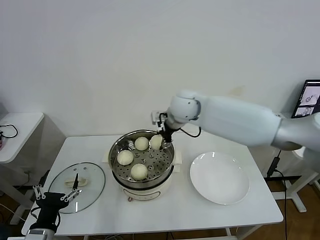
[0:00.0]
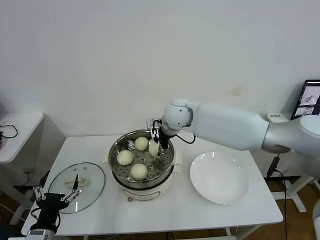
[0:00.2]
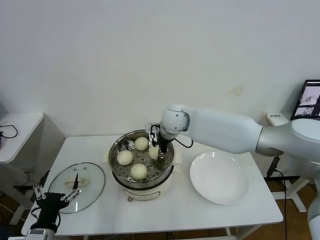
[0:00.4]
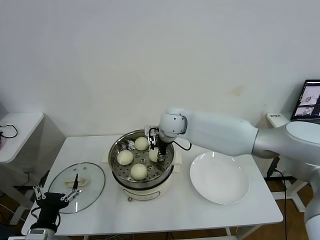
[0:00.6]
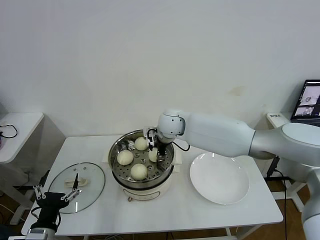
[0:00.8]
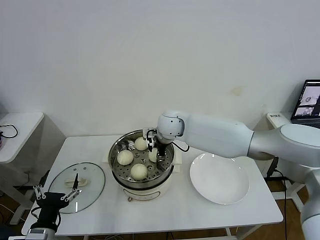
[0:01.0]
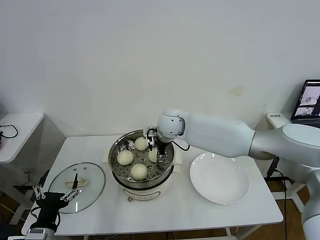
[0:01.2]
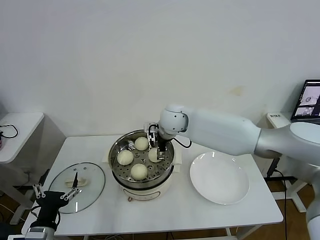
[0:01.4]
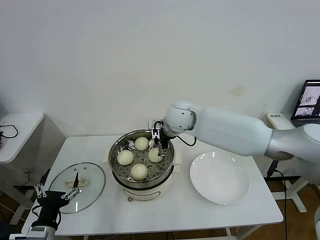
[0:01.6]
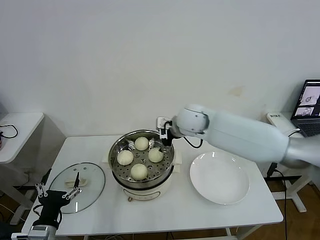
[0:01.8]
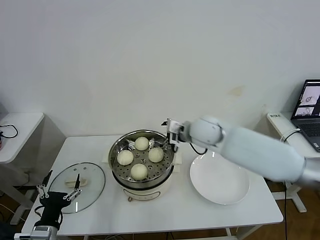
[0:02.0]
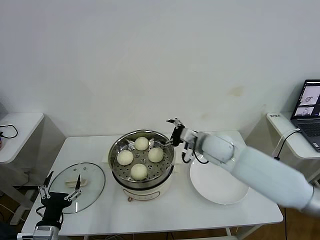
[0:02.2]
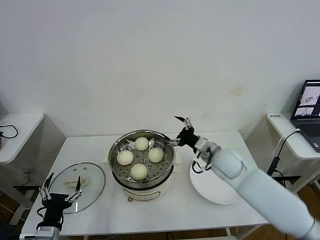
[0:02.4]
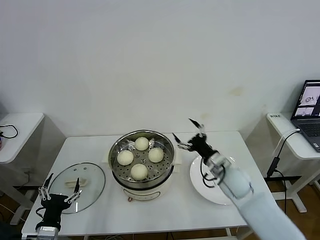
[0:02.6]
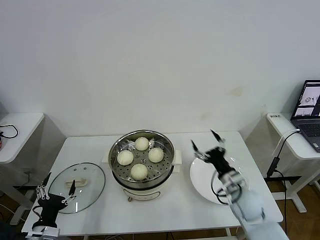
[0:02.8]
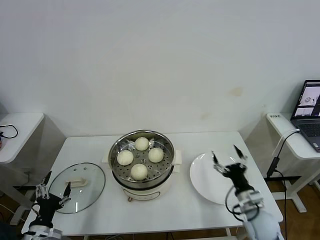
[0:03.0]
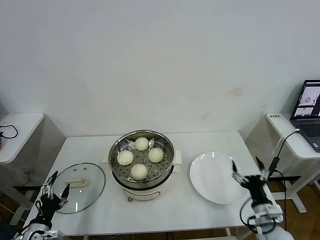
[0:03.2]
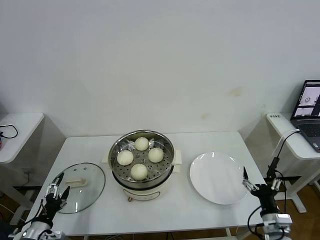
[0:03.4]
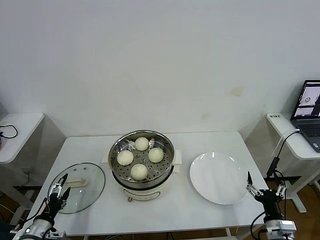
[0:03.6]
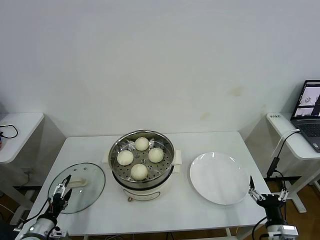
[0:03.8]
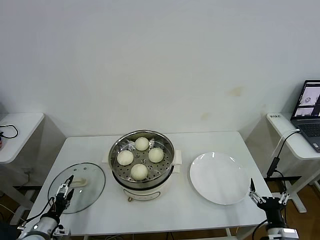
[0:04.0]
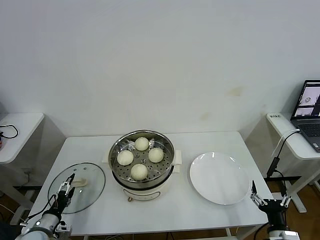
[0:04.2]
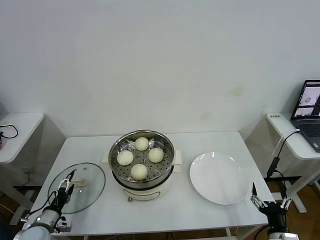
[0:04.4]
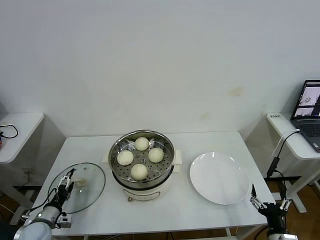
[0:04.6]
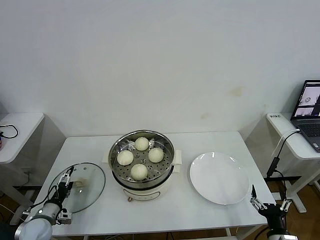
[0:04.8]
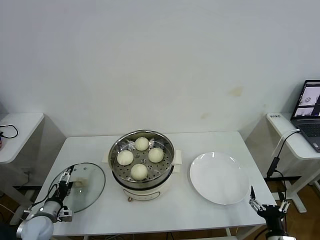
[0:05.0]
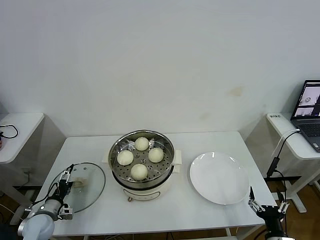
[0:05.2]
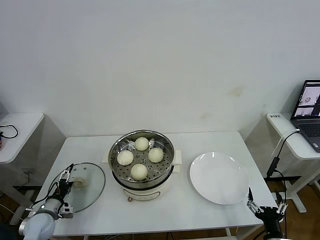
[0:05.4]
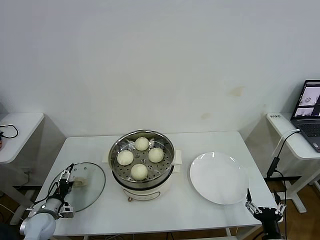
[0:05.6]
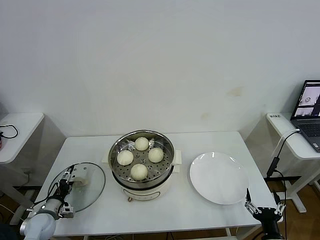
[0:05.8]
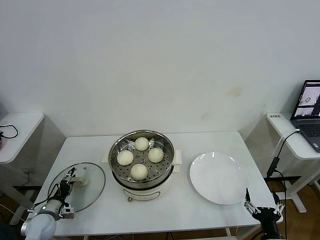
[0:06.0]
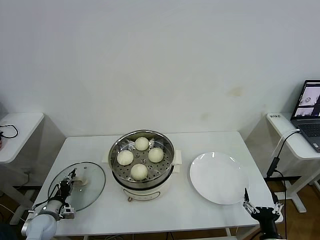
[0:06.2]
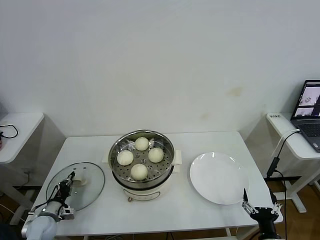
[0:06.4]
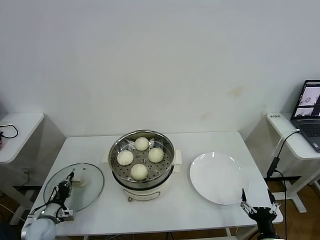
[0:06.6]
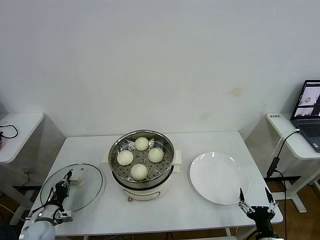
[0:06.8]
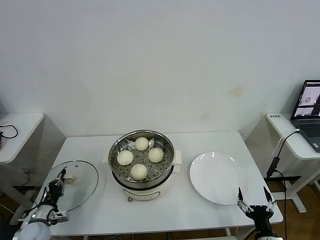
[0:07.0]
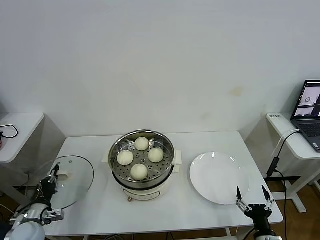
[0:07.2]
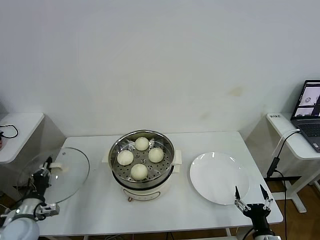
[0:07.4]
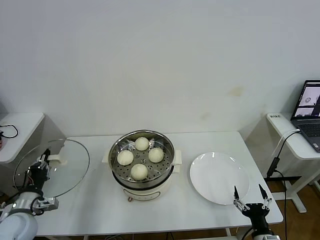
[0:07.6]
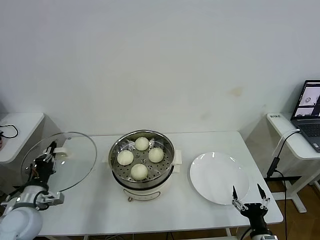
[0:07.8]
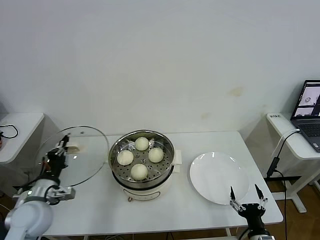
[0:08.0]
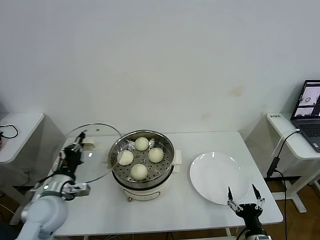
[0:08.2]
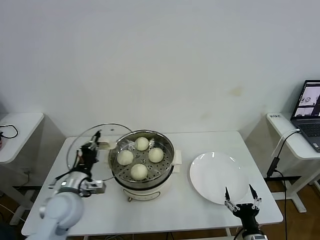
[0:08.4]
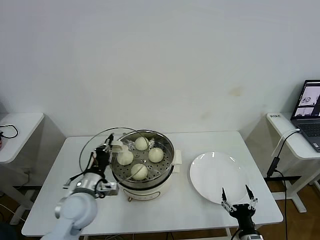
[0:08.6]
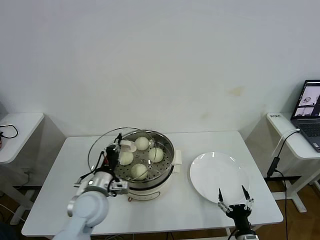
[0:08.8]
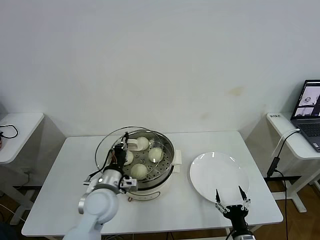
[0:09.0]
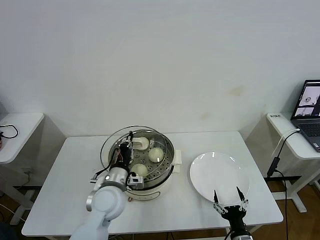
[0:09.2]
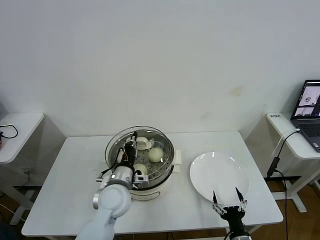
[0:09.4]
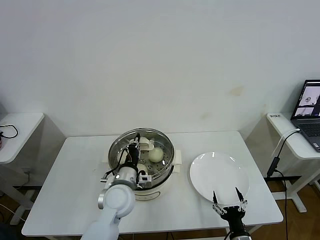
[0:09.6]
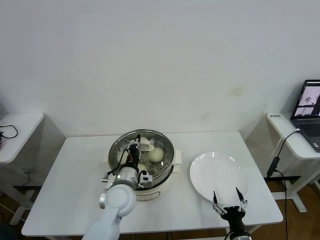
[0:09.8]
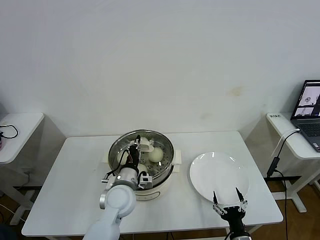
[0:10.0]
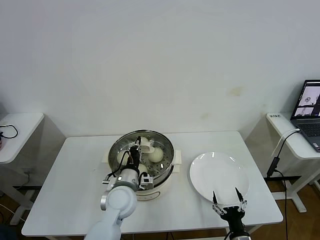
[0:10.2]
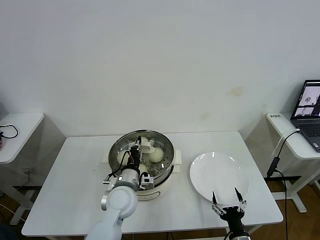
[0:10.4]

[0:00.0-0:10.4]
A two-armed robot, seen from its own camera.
Task of the whole recording: take steamed baozi put them in steamer then cover it.
Step, 0:01.6 to 0:06.4: Grasp the pot lid with left gripper.
0:00.0 to 0:01.4: The right gripper travels downward by about 5 cm, and opens up.
0:01.4 to 0:03.0: The left gripper is displaced downward by roughly 5 cm, while the right gripper goes some 40 cm to the right, backward and downward.
0:03.0 to 0:04.4: The right gripper shifts roughly 15 cm backward and to the right. The left gripper is displaced forward, downward and to the left by some 10 cm.
0:04.4 to 0:06.0: The left gripper heads forward, covering about 5 cm, and closes up.
0:06.0 to 0:07.4: The left gripper heads upward, covering some 10 cm, and closes its fingers.
0:07.4 to 0:09.0: The right gripper changes place by about 5 cm; the left gripper heads to the right, covering about 25 cm.
0:09.0 to 0:10.4: The left gripper shifts roughly 5 cm to the right.

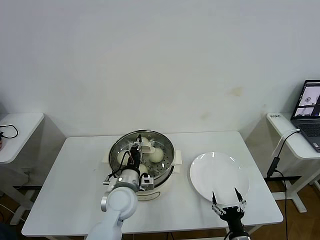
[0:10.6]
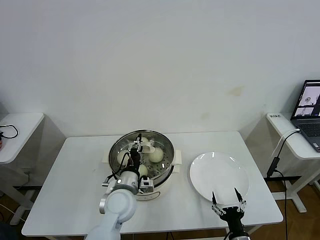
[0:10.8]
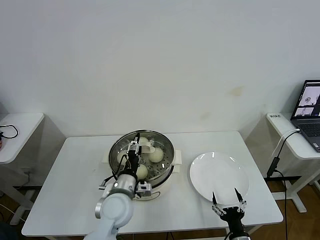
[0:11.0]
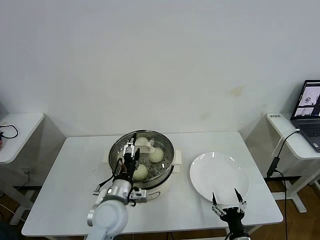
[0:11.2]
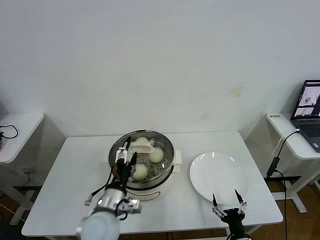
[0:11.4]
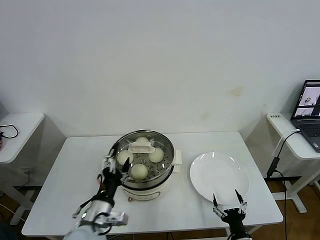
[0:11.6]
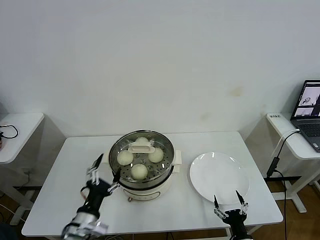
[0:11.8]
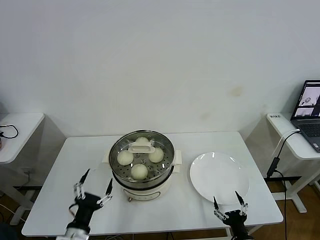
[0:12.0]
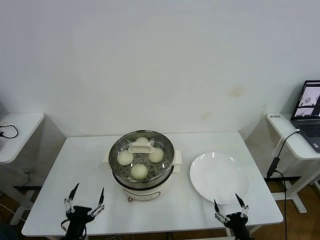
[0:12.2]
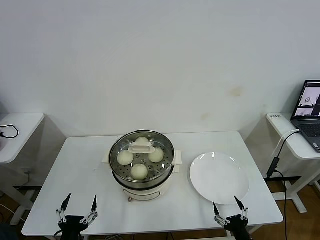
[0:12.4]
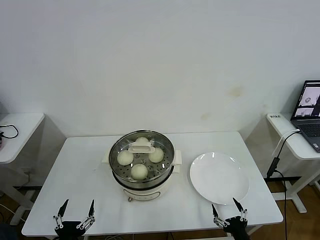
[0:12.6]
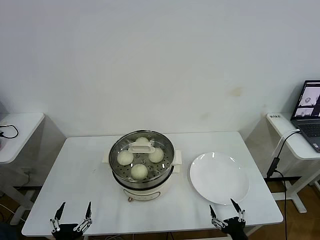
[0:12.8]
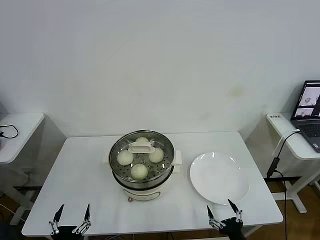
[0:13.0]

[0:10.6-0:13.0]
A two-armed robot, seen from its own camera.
Task of the whole recording: take steamed baozi put them in steamer then cover it.
0:10.6 to 0:11.8: The left gripper shifts approximately 15 cm backward and to the left, and opens its fingers.
0:11.8 to 0:13.0: The left gripper is displaced backward, downward and to the left by approximately 15 cm.
